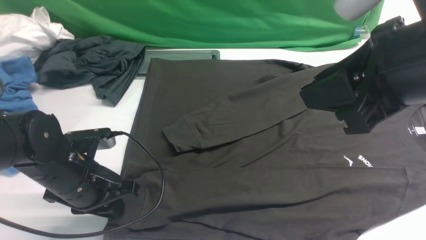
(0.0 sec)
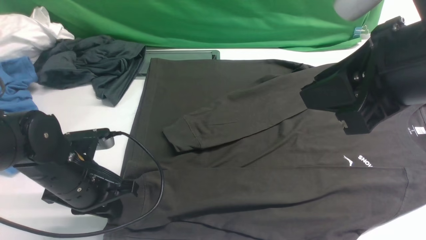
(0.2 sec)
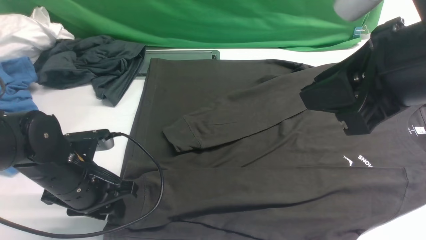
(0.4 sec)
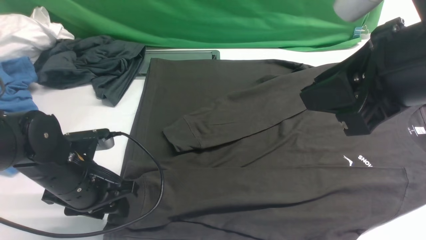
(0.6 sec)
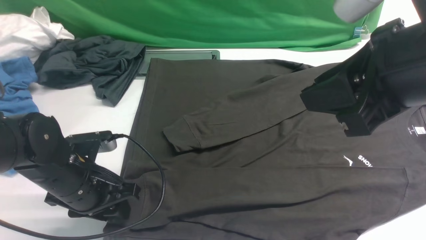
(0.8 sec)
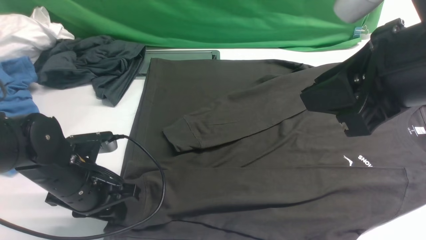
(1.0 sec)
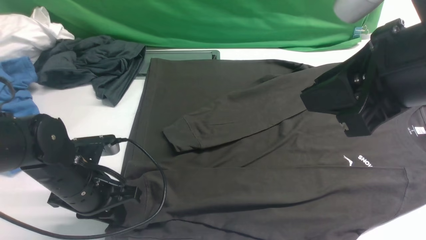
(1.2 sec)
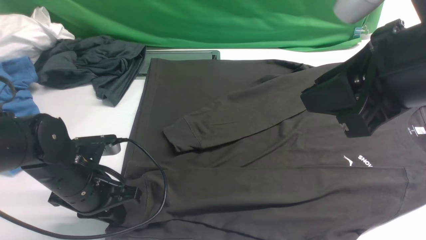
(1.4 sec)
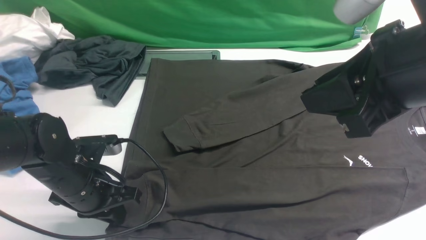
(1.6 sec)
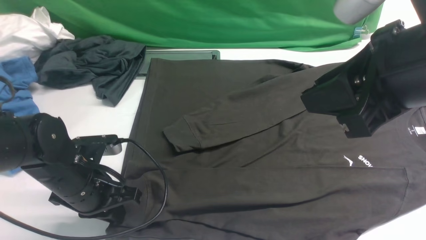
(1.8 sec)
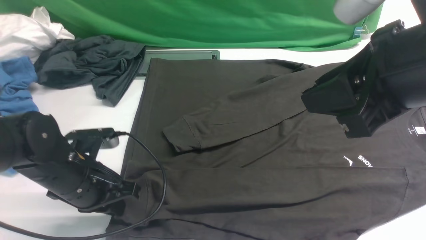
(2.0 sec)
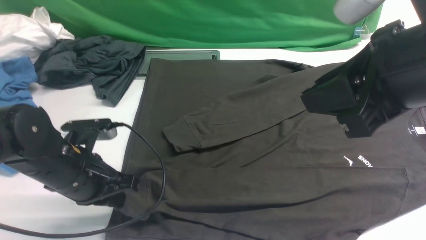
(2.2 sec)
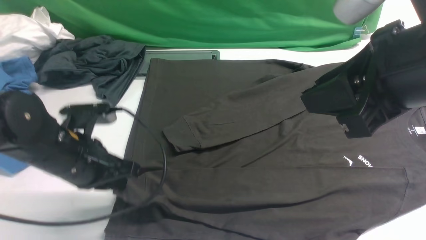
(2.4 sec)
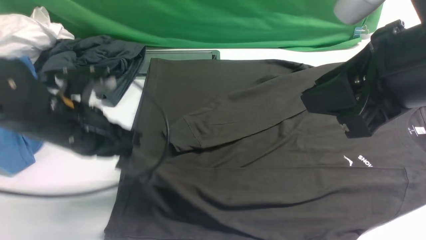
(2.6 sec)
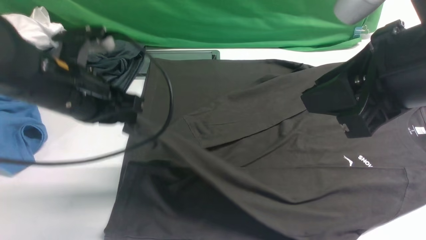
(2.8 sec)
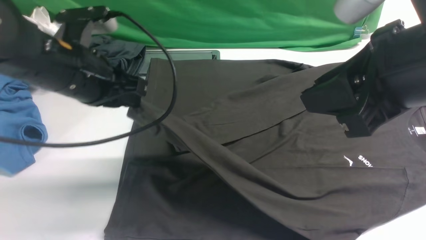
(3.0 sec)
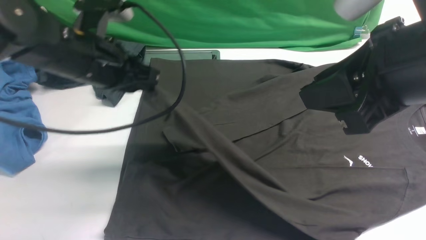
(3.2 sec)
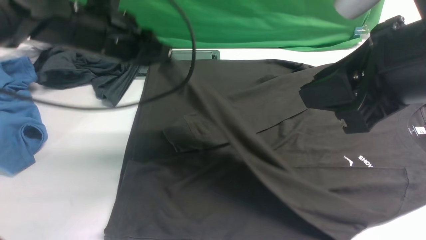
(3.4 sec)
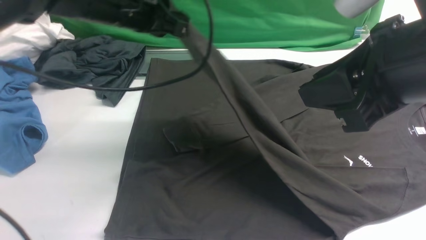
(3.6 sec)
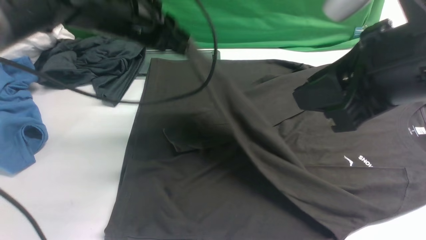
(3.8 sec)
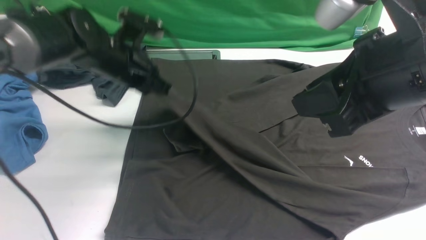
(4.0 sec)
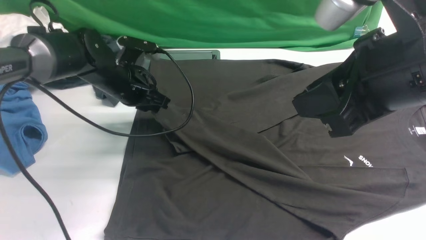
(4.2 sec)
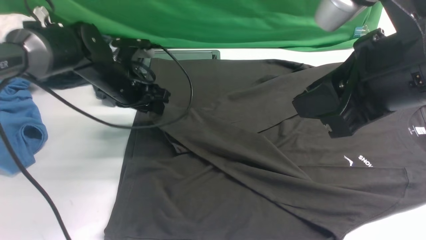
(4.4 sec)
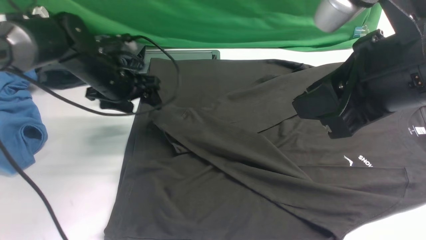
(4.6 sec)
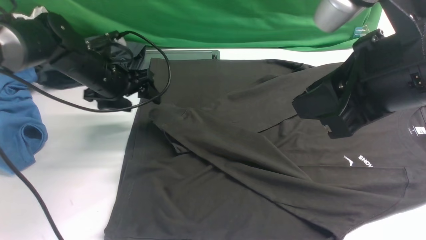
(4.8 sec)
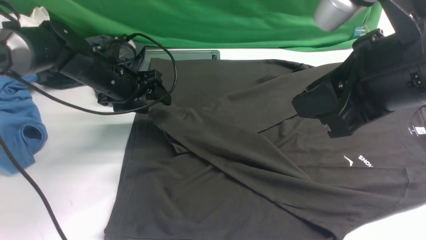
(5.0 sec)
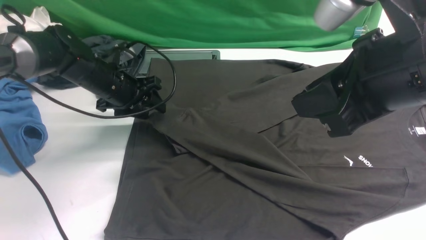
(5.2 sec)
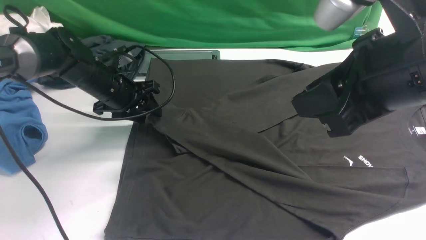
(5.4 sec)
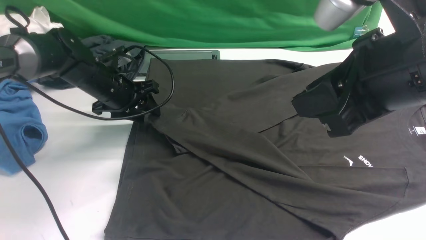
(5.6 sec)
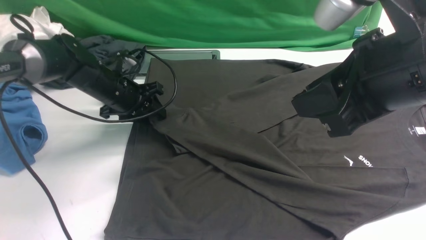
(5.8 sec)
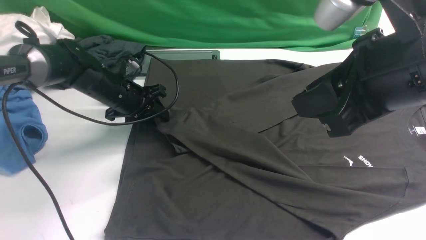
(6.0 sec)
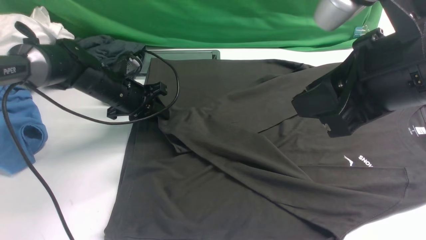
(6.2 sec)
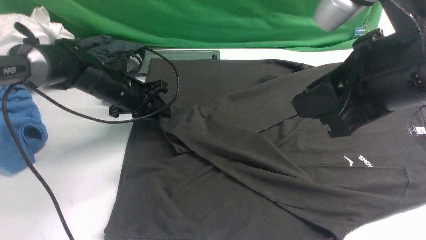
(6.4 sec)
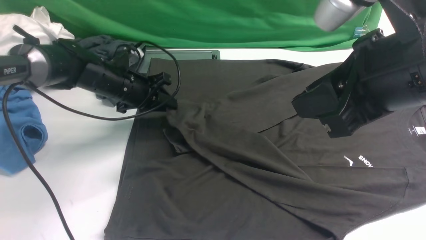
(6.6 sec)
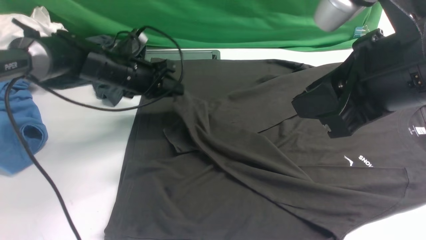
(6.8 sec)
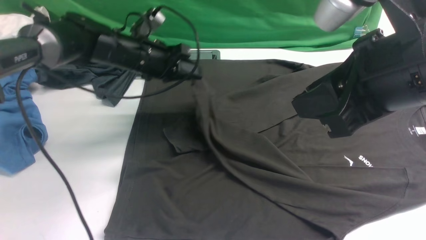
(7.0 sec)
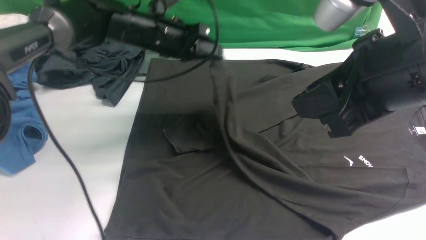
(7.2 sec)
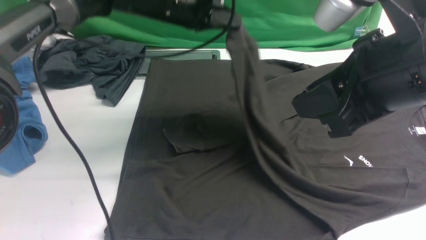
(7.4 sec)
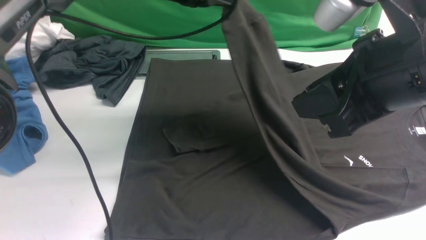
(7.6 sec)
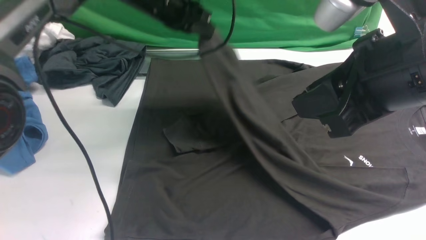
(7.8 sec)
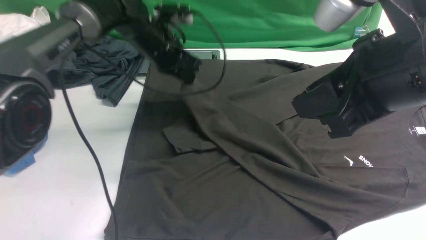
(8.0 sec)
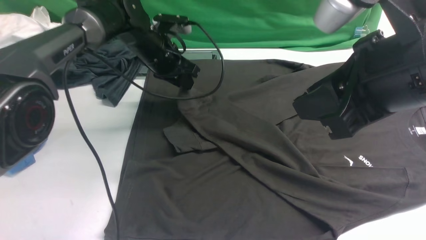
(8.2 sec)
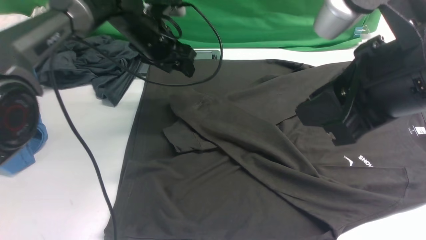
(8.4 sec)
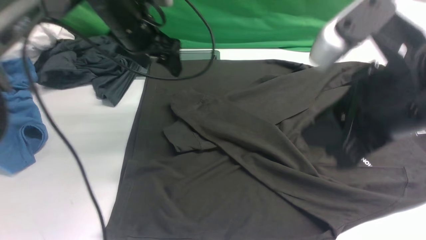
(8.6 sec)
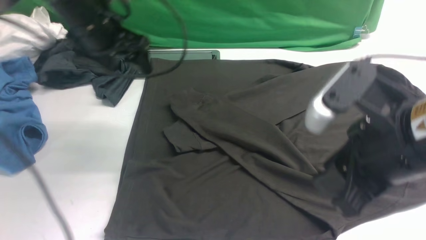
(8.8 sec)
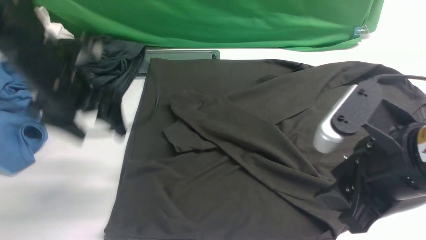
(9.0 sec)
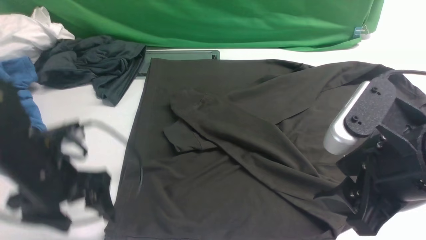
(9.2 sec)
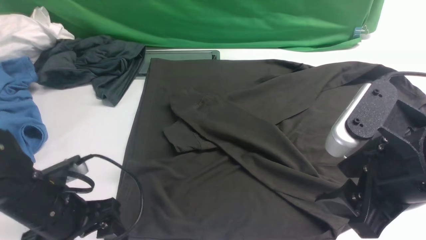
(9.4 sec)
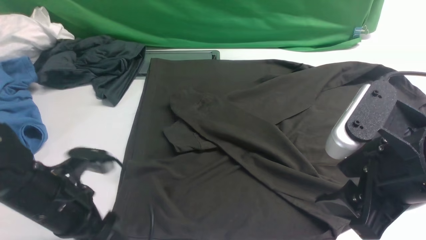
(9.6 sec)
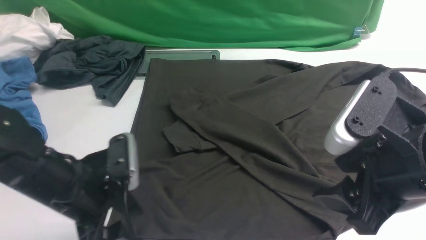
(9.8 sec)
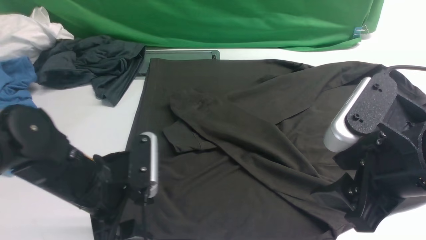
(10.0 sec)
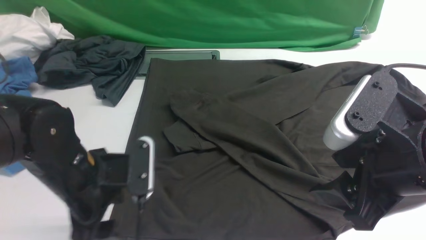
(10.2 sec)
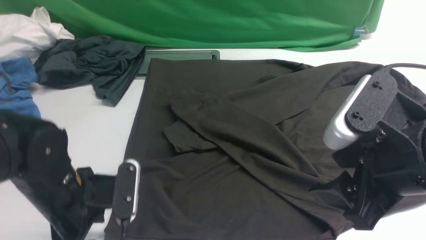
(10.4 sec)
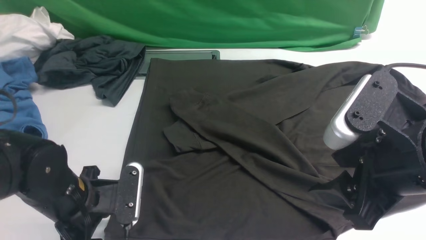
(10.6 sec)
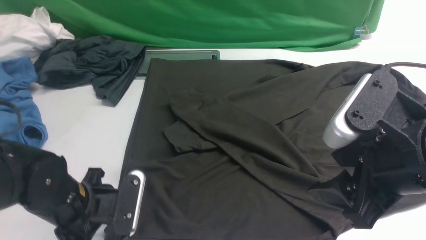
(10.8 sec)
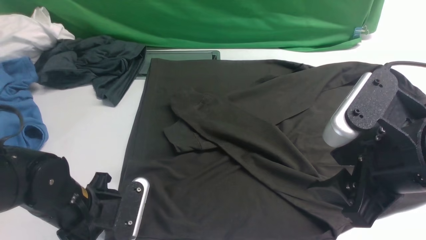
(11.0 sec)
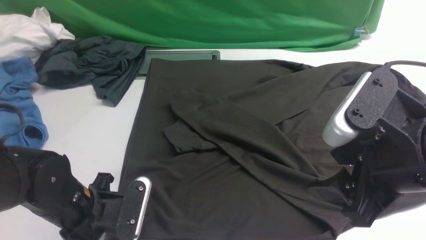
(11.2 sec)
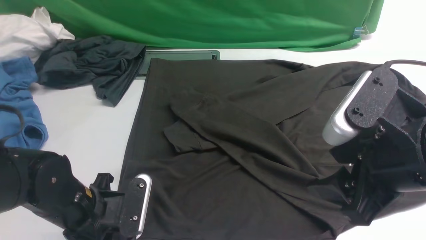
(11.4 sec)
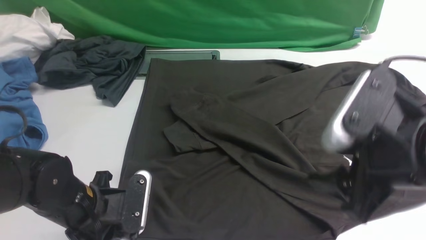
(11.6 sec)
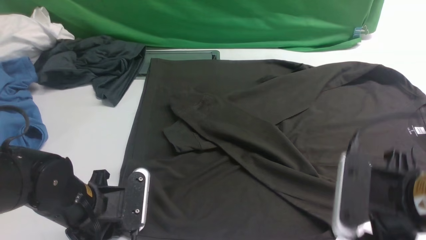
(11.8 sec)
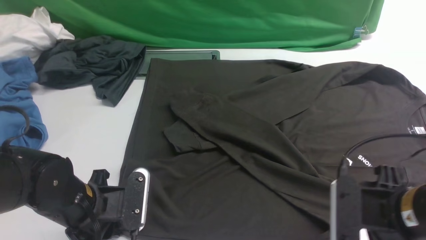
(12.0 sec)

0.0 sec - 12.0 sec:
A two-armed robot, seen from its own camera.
Step, 0.0 sec - 2.4 sec: use the left arm to clamp the cuff closest to it.
Step, 2.6 sec - 8.6 sec: use the left arm to drag and drop the cuff onto the cuff closest to the left arm.
0.0 sec - 1.6 sec: The grippers make only small movements.
1.6 sec - 3.0 sec: The left gripper goes approximately 15 cm upward and forward.
3.0 sec - 4.4 sec: The left gripper moves forward and downward, approximately 15 cm, and opens its fingers.
4.4 sec - 6.0 sec: The left gripper moves some 5 cm.
6.0 sec - 7.6 sec: The left gripper goes some 20 cm upward and to the right.
7.6 sec - 9.0 sec: The left gripper travels backward and to the left by roughly 20 cm, and opens up, while the right gripper shifts some 10 cm downward.
9.0 sec - 10.4 sec: The left gripper travels backward and downward by roughly 15 cm.
10.4 sec - 12.0 sec: The left gripper closes, while the right gripper is displaced downward by approximately 10 cm.

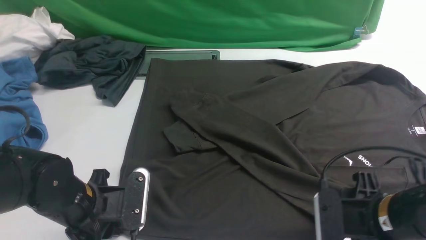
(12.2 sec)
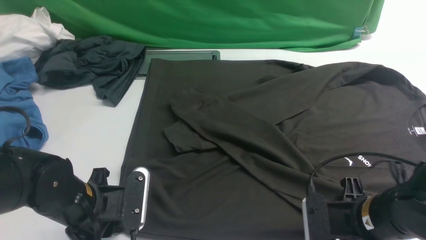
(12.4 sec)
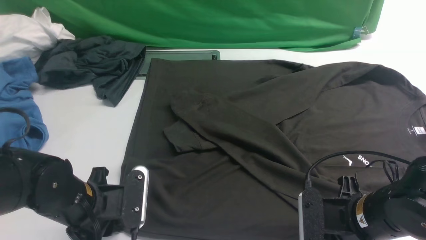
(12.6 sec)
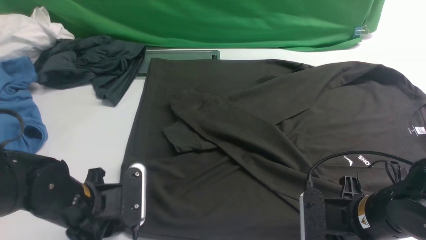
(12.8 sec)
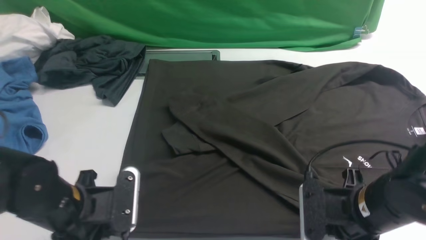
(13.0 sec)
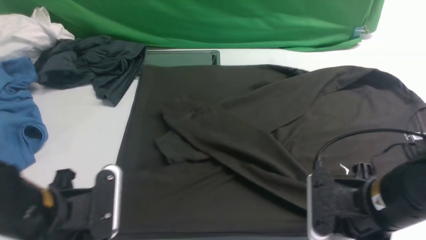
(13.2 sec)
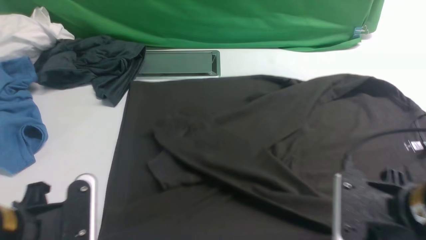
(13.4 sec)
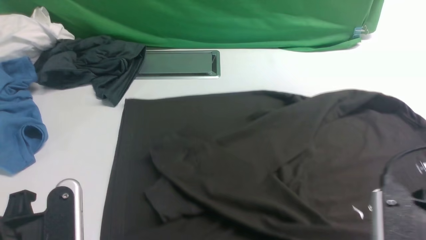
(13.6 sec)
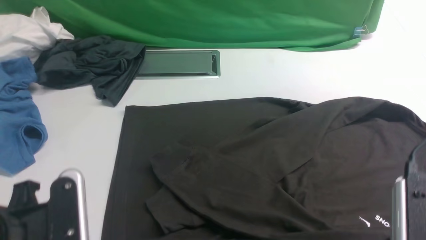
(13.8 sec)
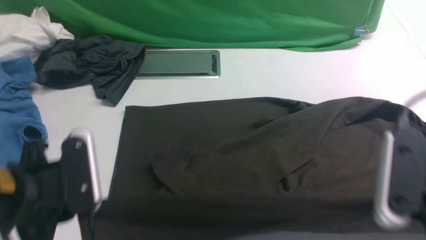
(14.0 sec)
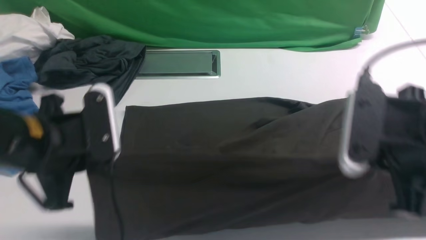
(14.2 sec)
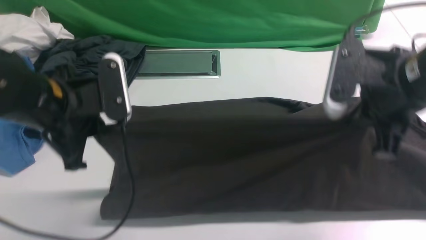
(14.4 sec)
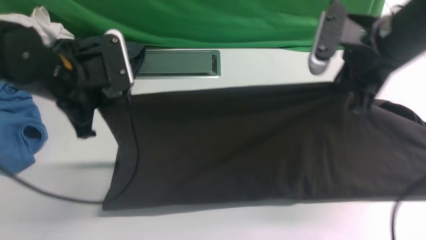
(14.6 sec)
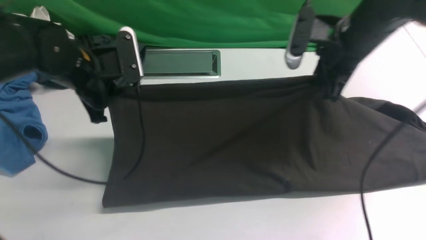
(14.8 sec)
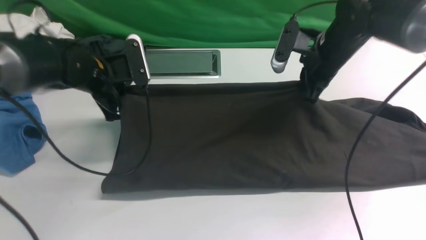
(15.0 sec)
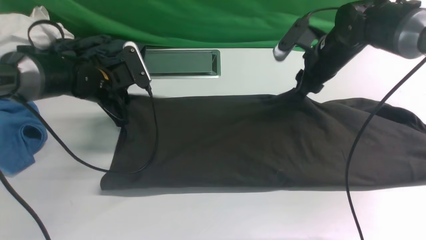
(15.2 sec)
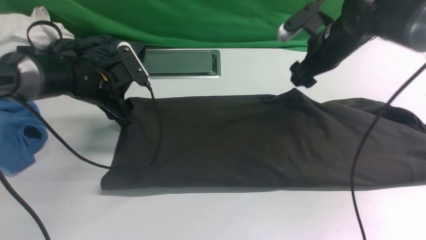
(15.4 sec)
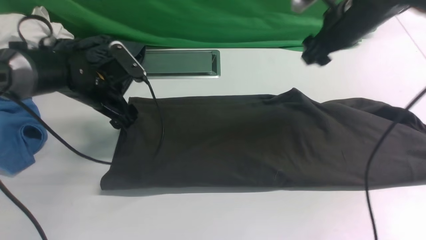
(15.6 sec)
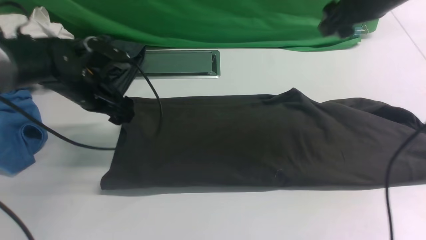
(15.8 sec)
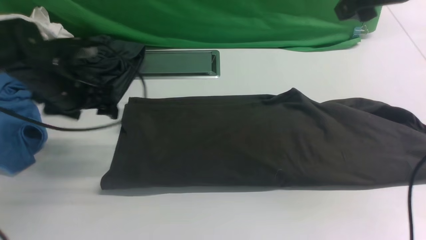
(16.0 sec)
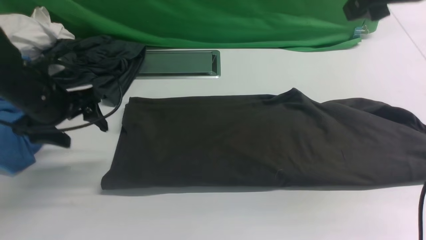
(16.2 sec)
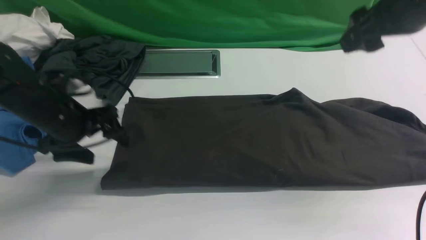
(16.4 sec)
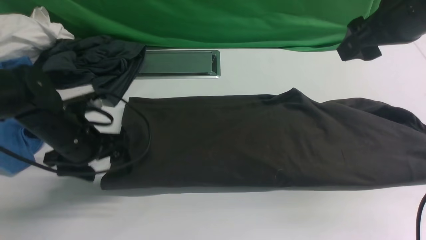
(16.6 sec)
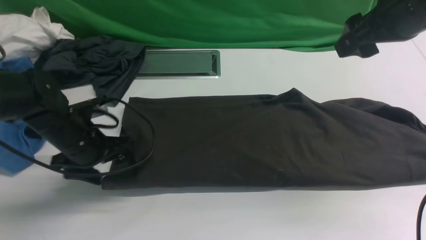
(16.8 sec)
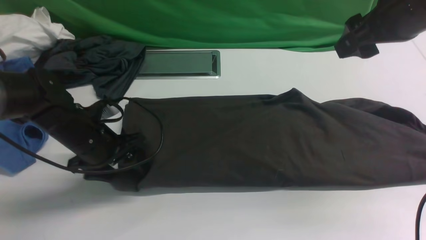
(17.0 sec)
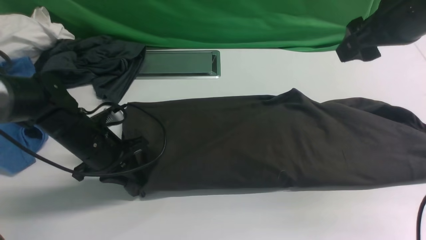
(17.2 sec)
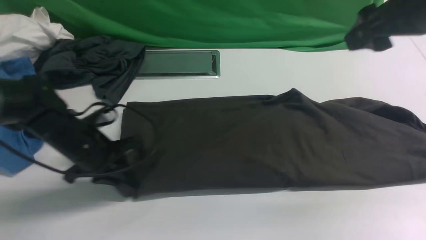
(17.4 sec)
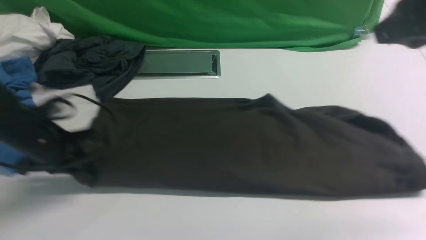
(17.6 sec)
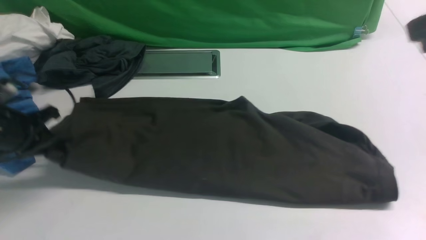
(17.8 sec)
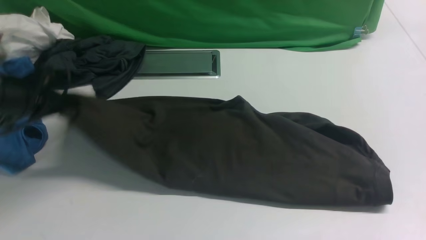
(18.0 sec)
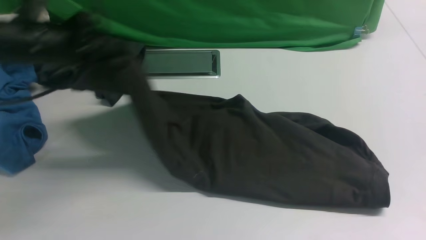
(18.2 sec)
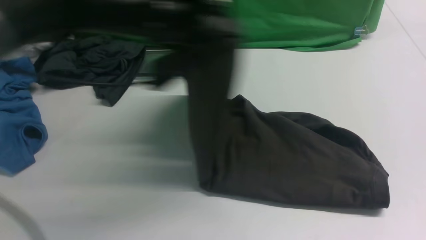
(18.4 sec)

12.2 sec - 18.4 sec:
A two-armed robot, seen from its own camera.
Step, 13.2 sec - 15.6 sec: use both arms to drag the lower edge of the fabric forward and fold it over the upper edge.
Step, 15.8 sec - 17.4 sec: Hold the left edge of the fabric with your left arm.
12.2 sec - 13.8 sec: The grippers both shift upward and backward by about 10 cm. The right gripper closes.
13.8 sec - 15.4 sec: The grippers both shift forward by about 30 cm. The right gripper opens its fingers, while the left gripper opens.
15.4 sec - 16.8 sec: The right gripper is displaced backward and upward by some 15 cm. The left gripper shifts some 10 cm backward.
16.8 sec - 18.4 sec: The left gripper heads to the right and upward, covering about 25 cm, and closes its fingers; the right gripper heads backward and upward, covering roughly 15 cm, and closes.
